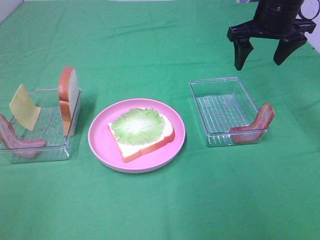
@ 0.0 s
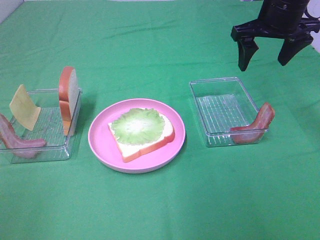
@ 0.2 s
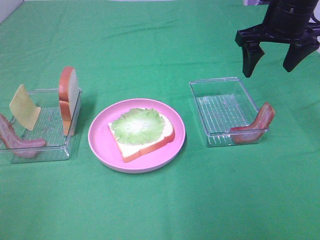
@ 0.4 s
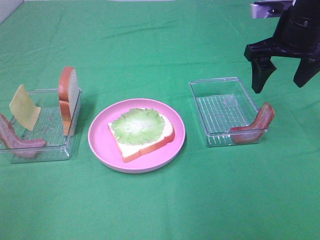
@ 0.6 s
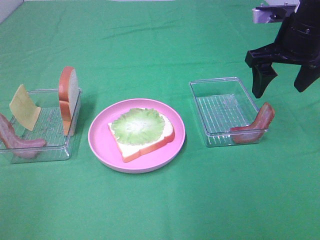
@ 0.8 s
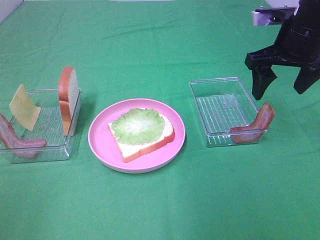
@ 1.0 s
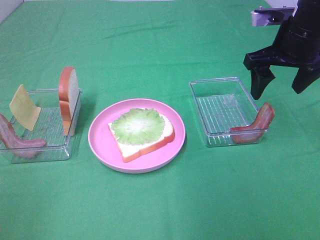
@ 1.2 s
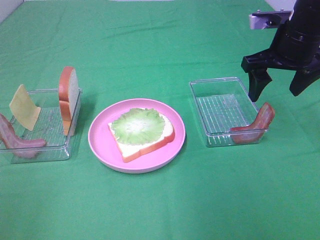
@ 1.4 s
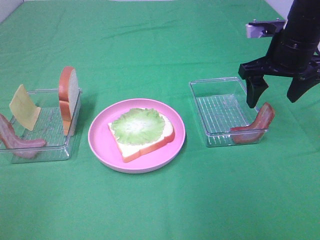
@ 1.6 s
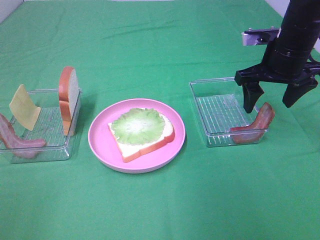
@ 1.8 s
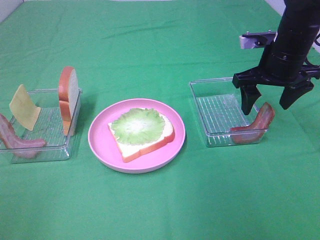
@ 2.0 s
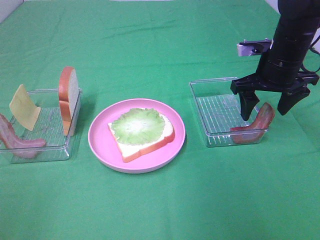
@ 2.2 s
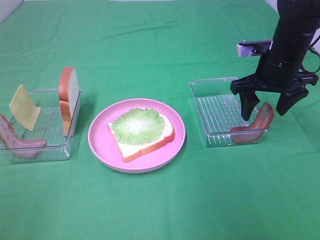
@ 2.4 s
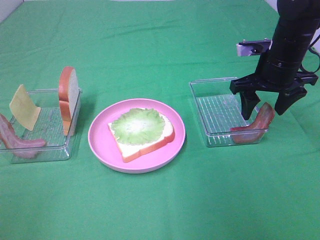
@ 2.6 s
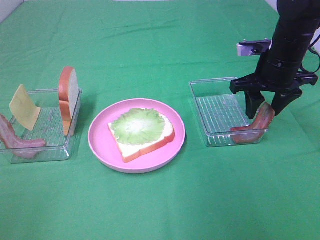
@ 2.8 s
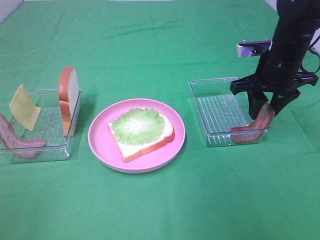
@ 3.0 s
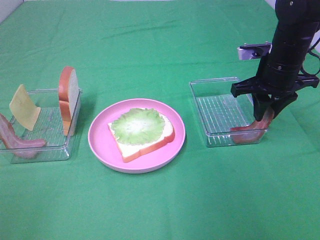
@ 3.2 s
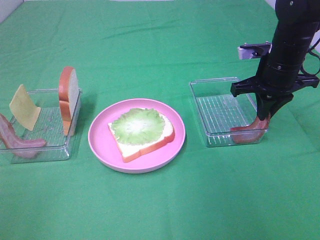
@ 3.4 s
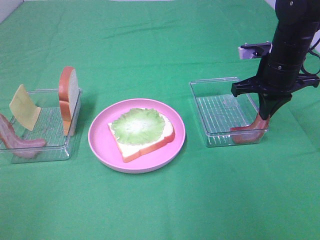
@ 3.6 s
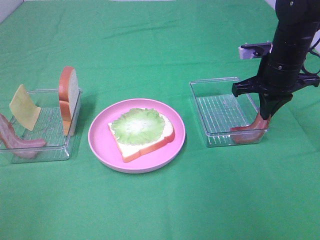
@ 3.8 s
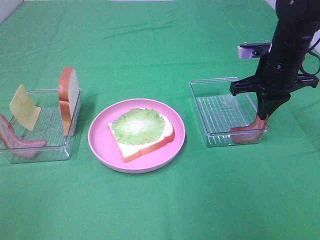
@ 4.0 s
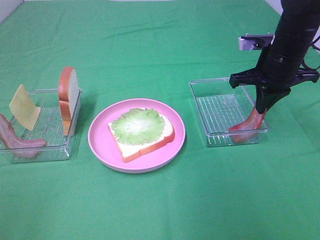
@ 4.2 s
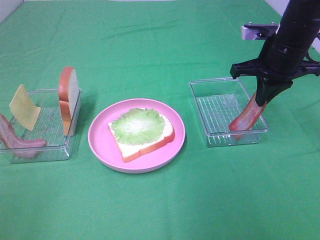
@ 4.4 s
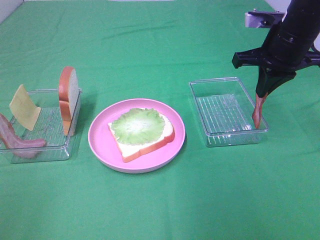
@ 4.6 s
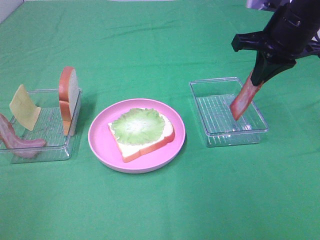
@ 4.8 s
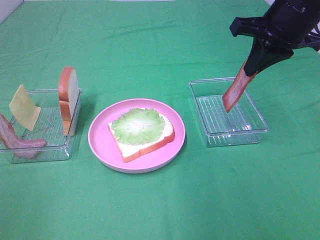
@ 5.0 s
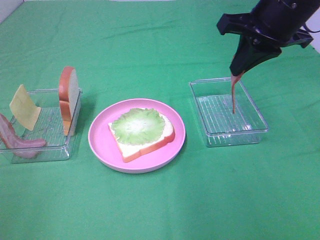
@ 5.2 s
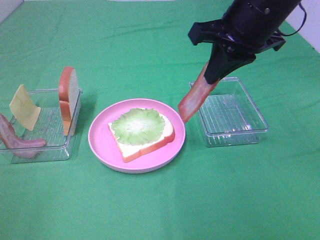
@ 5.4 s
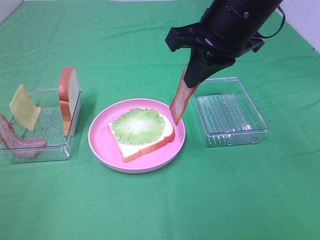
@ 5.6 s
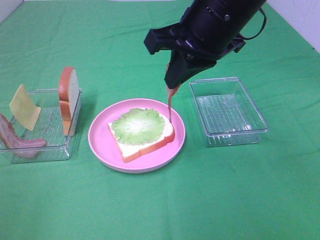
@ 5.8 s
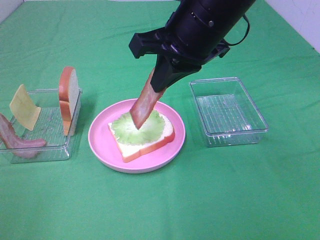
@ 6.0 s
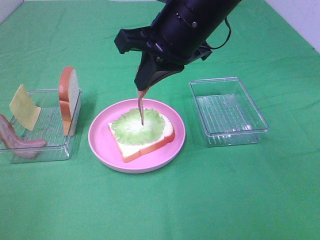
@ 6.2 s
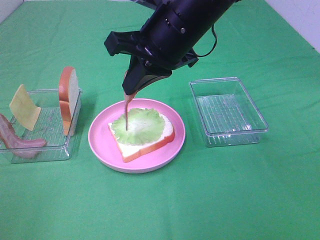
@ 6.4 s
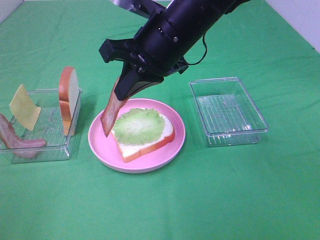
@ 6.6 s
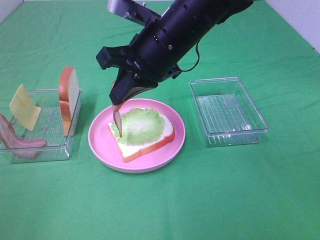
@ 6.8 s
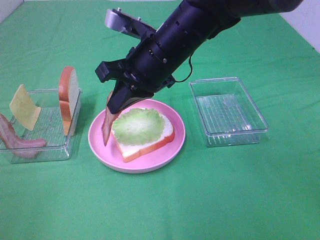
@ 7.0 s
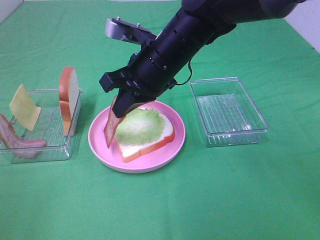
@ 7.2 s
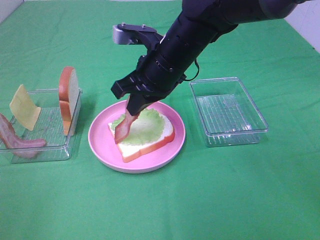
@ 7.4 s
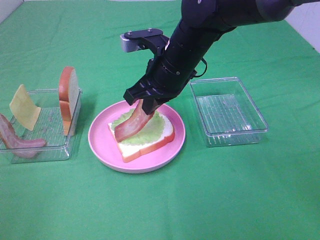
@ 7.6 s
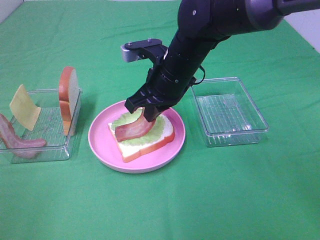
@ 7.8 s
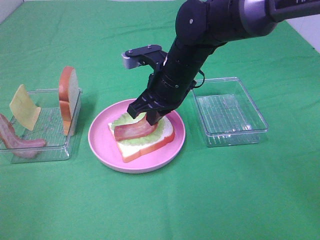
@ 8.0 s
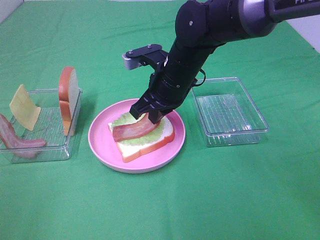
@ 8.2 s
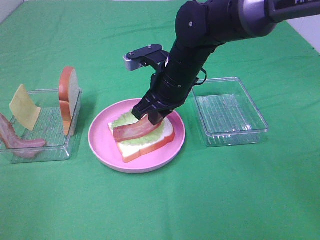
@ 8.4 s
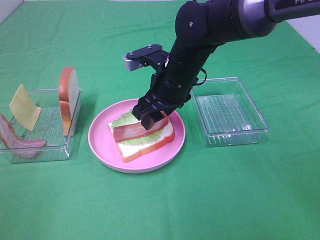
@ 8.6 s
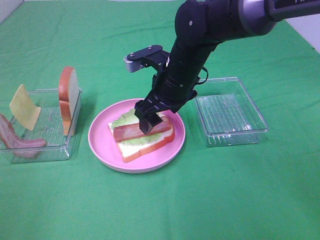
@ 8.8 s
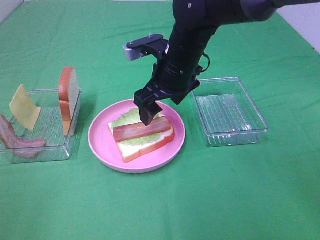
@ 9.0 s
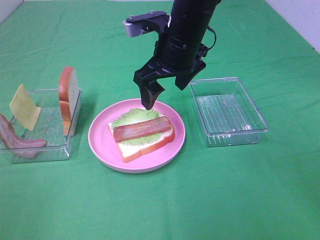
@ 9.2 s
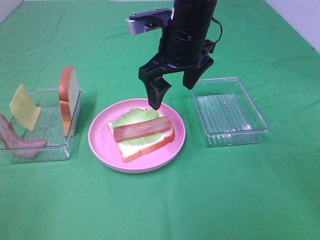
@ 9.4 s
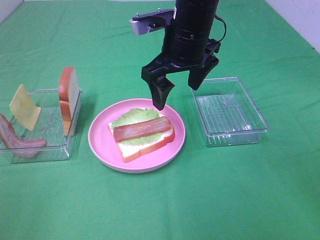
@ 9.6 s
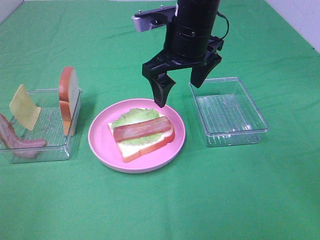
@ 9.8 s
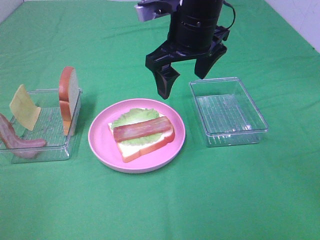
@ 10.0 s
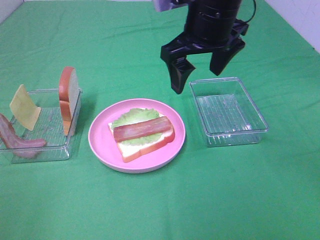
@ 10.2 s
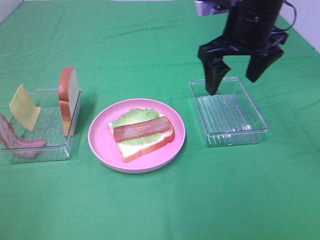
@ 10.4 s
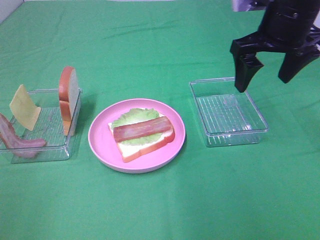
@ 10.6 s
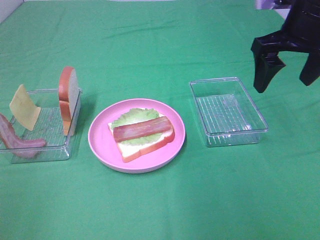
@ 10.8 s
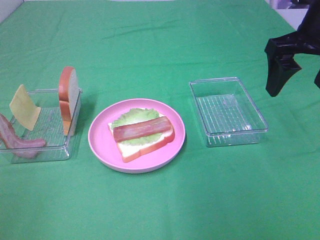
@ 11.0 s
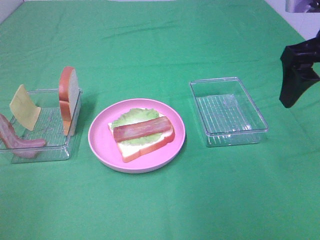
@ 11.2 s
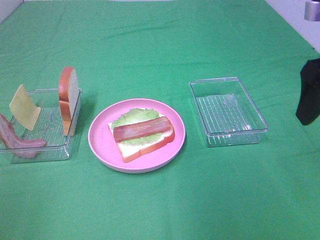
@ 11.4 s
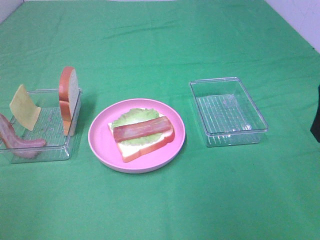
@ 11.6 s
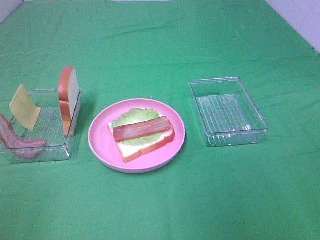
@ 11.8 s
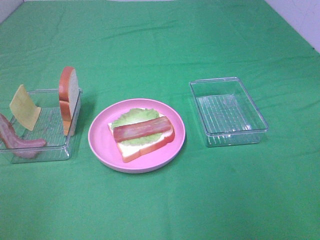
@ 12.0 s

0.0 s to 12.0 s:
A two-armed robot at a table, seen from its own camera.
Task of the whole recording: Make sandwiches.
Step, 0.0 to 3.4 s: Right hand:grab the bacon.
Step, 3.6 to 8.8 s: Right hand:place bacon on lettuce slice.
0.0 to 1.6 s: The right gripper moves backward, approximately 5 cm.
1.6 to 3.0 s: The right gripper closes up.
3.0 to 4.4 s: The right gripper closes up.
4.4 to 6.0 s: The right gripper heads to the left, backward and upward, covering approximately 20 cm.
6.0 to 7.6 s: The right gripper moves downward and forward, some 10 cm.
7.6 to 9.0 s: The right gripper opens up.
9.0 to 10.4 s: The right gripper heads to the right and upward, covering about 15 cm.
10.4 to 12.0 s: The right gripper shifts some 25 cm backward and to the right.

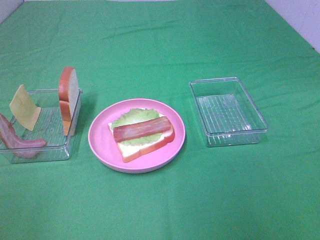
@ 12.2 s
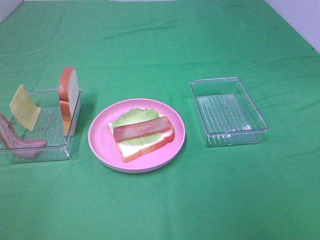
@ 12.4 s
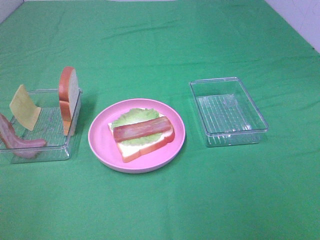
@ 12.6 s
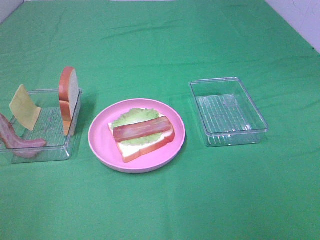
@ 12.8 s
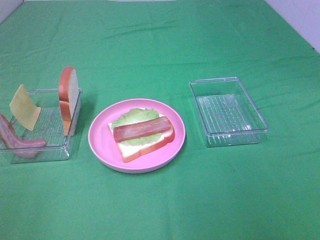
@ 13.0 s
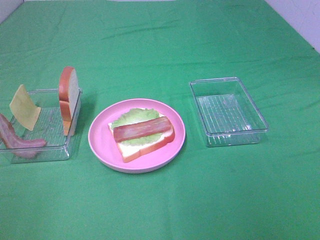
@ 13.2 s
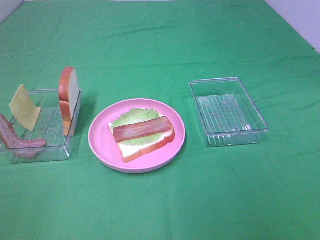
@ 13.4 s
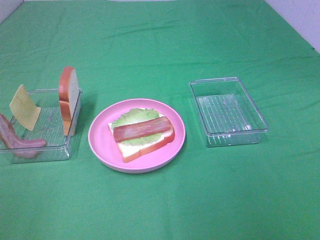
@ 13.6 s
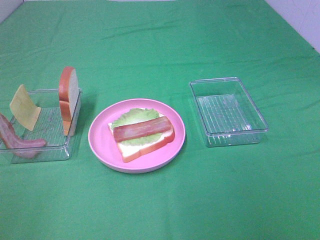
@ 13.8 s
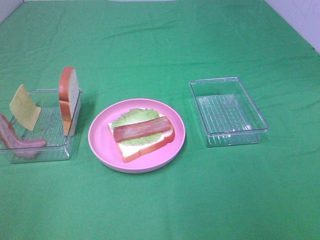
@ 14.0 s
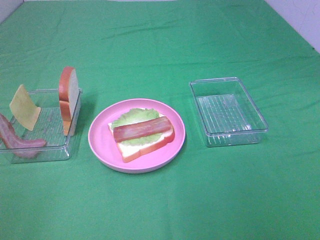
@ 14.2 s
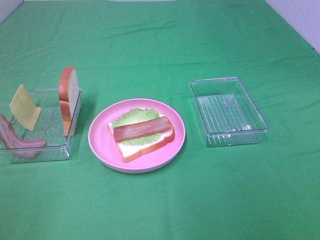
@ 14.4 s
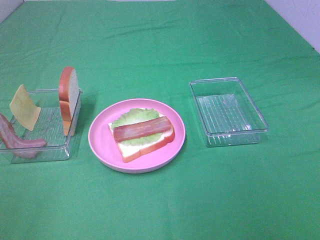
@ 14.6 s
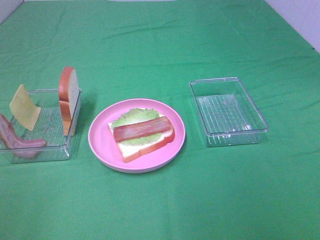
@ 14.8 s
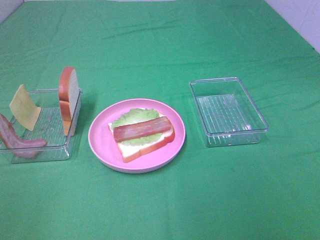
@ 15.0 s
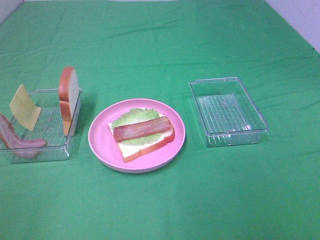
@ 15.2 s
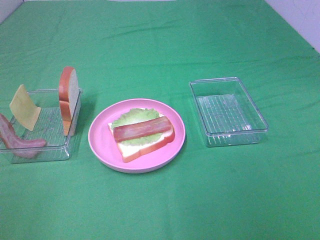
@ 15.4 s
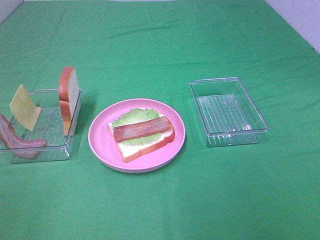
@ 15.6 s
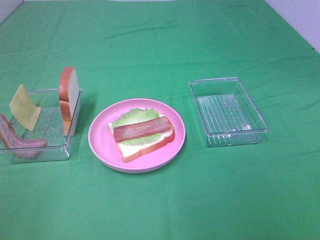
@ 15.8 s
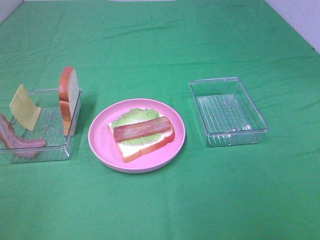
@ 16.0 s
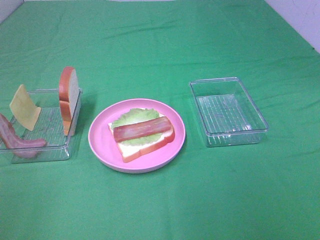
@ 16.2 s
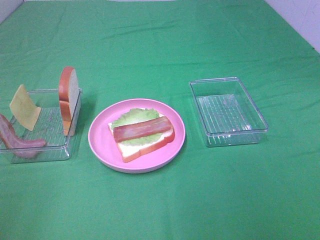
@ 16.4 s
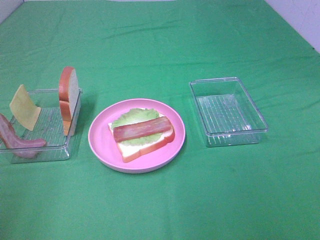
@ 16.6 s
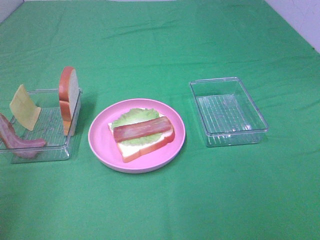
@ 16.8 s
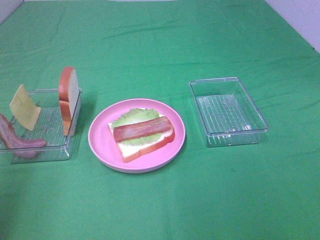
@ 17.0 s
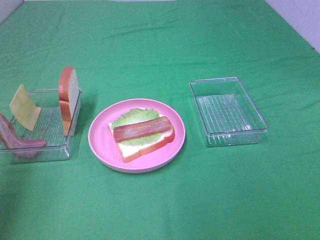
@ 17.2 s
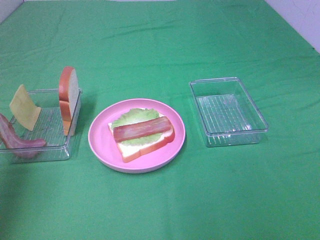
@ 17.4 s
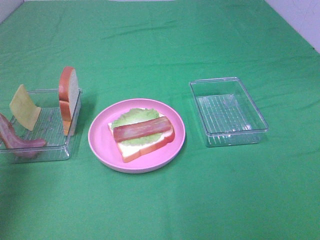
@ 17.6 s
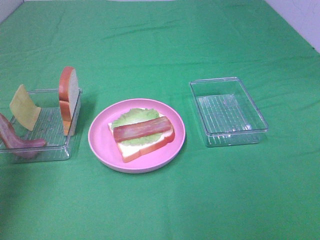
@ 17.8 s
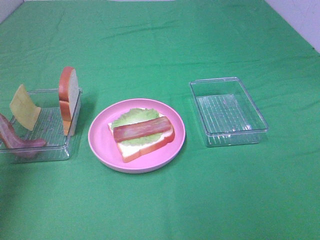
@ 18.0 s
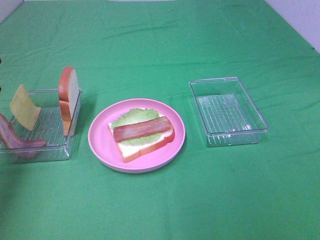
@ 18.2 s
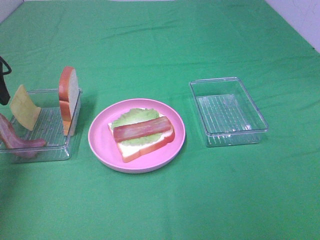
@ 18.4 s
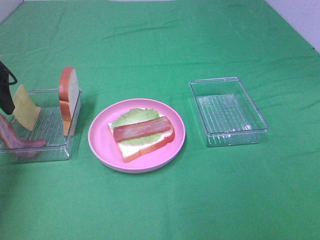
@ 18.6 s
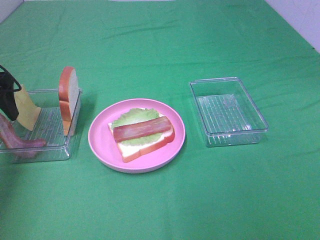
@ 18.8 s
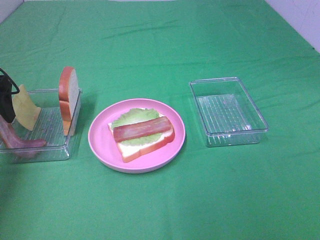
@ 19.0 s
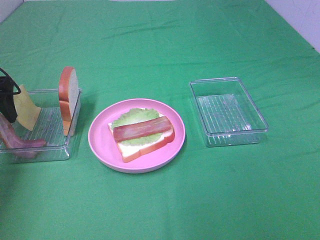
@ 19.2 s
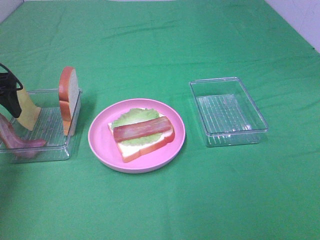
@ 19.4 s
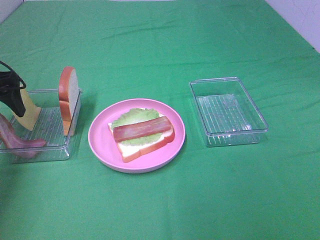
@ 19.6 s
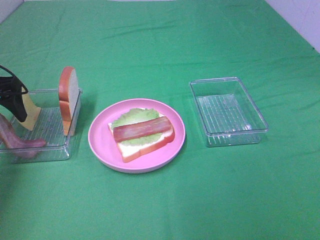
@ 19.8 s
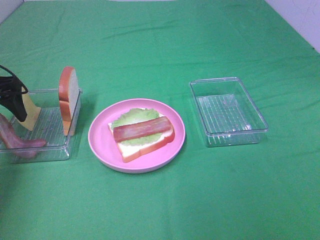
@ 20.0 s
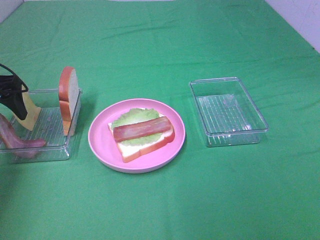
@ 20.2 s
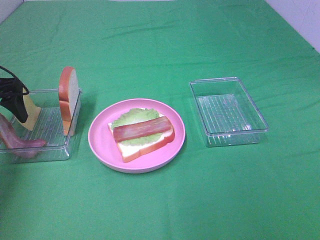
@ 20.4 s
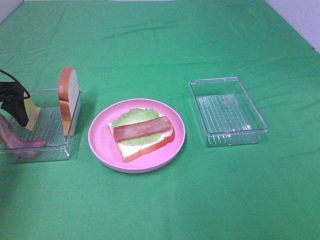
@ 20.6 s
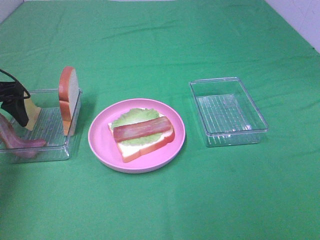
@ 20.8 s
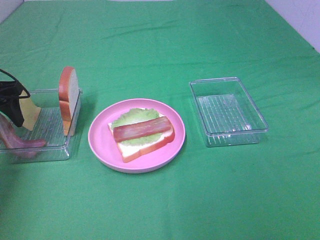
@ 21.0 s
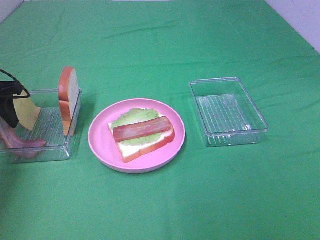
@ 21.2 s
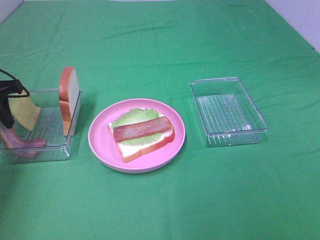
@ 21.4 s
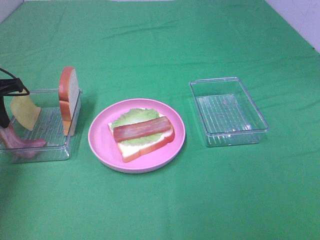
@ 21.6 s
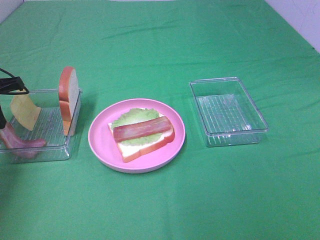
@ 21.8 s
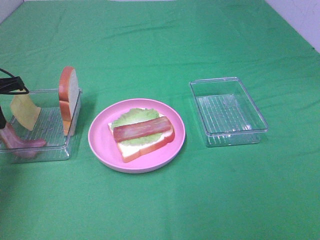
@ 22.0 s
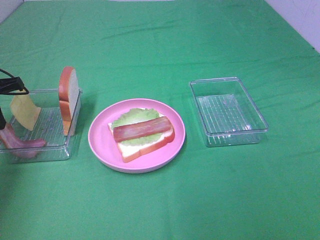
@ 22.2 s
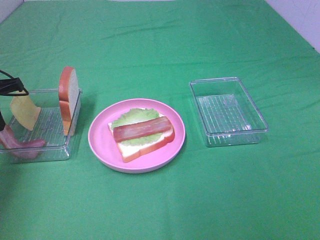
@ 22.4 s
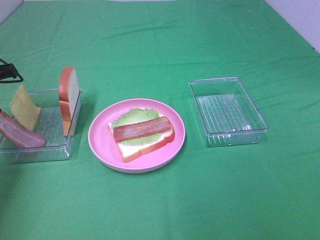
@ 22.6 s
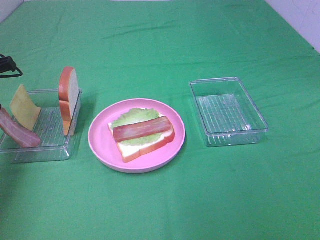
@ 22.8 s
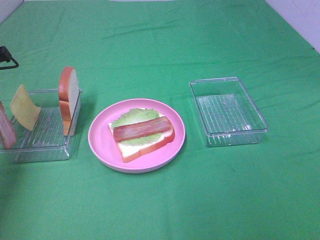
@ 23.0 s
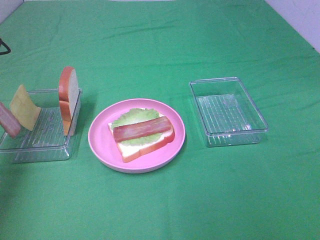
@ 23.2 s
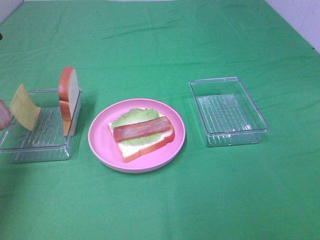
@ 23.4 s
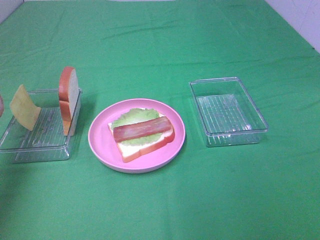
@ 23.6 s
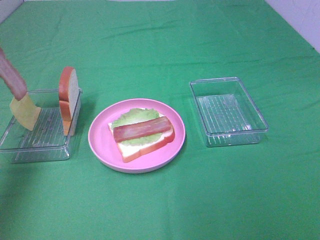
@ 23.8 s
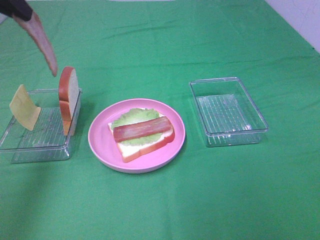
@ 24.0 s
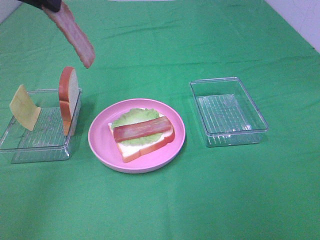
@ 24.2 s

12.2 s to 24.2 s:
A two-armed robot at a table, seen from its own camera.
Task of the whole recording: Make sandwiches.
16.6 to 18.2 s: The left gripper heads forward, covering approximately 25 cm.
18.2 to 19.8 s: The left gripper heads downward, covering roughly 10 cm.
19.8 to 21.2 s: The left gripper closes.
21.2 to 22.6 s: The left gripper closes its fingers.
22.6 to 24.2 s: The left gripper heads upward and to the right, covering roughly 25 cm.
